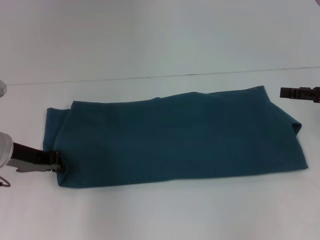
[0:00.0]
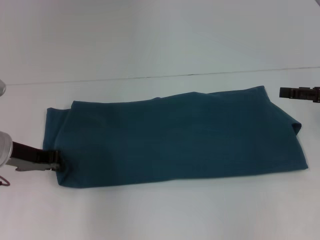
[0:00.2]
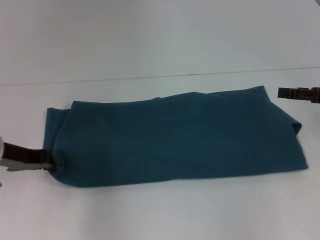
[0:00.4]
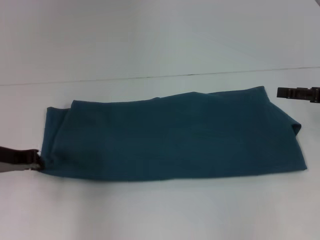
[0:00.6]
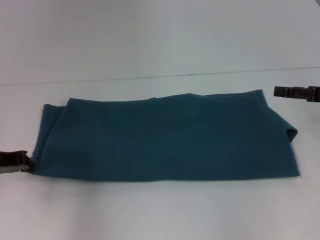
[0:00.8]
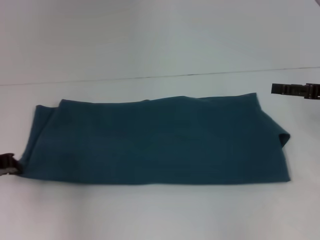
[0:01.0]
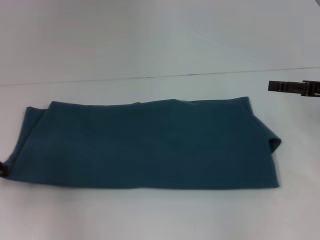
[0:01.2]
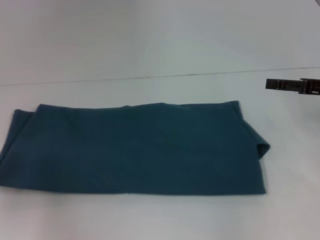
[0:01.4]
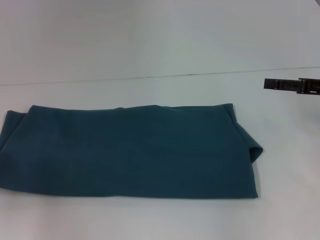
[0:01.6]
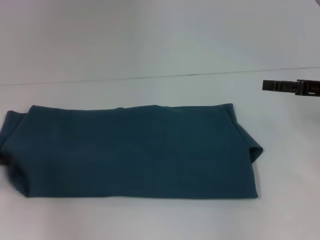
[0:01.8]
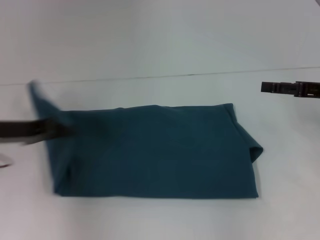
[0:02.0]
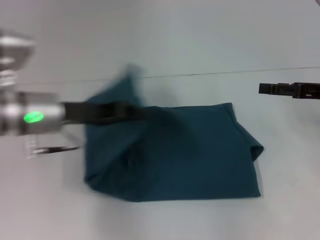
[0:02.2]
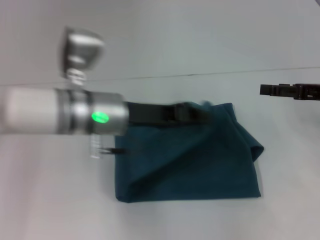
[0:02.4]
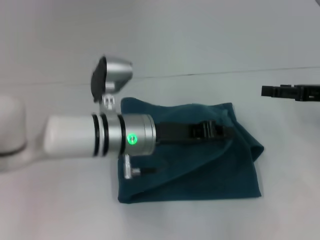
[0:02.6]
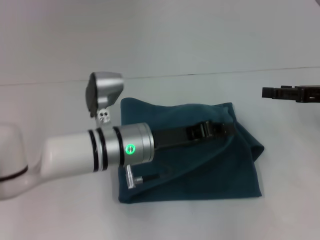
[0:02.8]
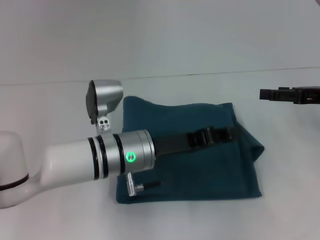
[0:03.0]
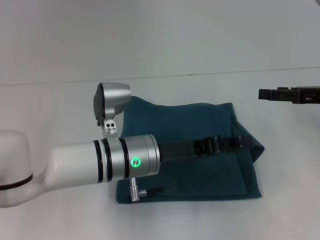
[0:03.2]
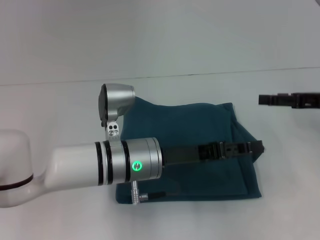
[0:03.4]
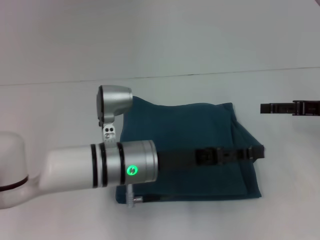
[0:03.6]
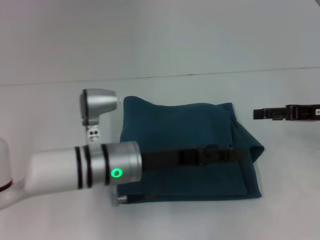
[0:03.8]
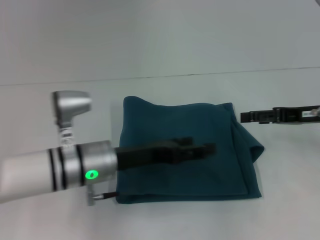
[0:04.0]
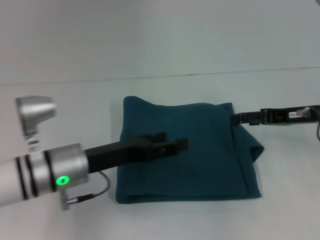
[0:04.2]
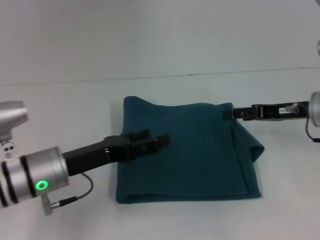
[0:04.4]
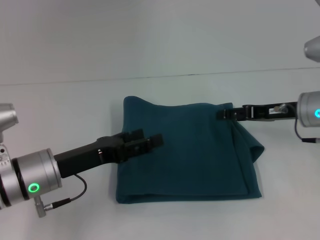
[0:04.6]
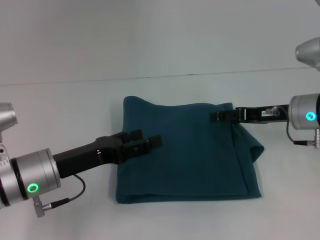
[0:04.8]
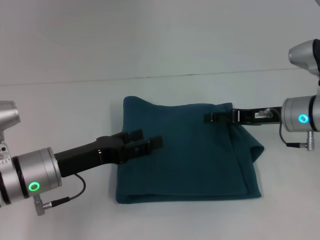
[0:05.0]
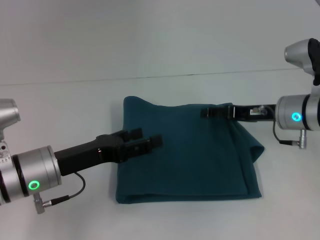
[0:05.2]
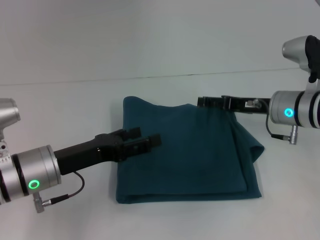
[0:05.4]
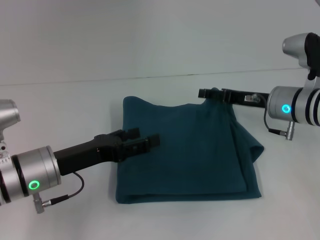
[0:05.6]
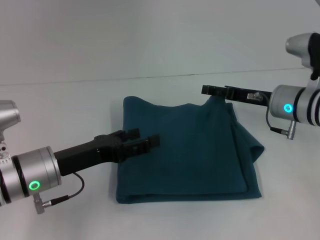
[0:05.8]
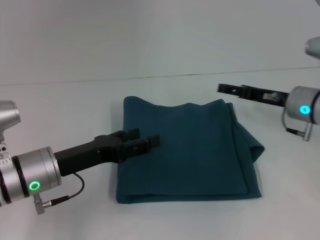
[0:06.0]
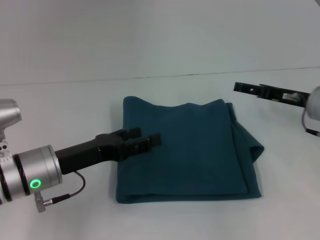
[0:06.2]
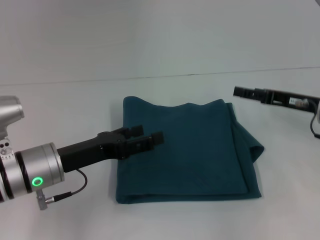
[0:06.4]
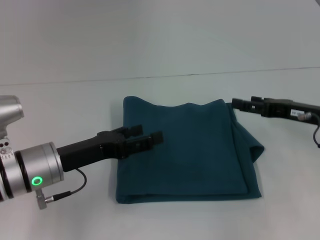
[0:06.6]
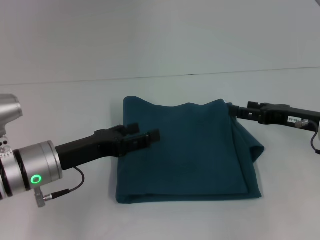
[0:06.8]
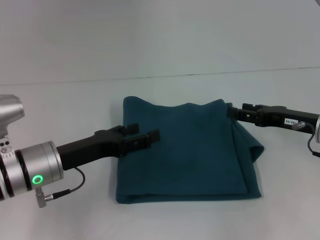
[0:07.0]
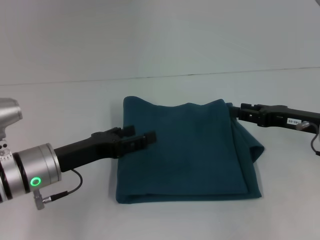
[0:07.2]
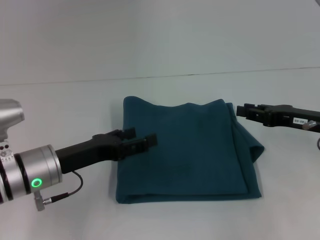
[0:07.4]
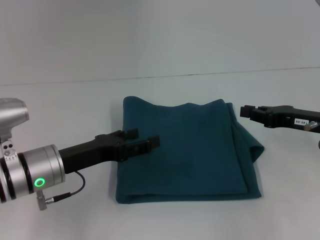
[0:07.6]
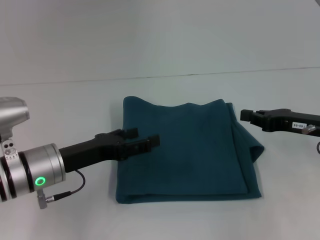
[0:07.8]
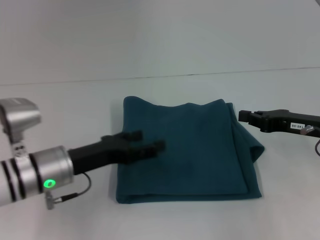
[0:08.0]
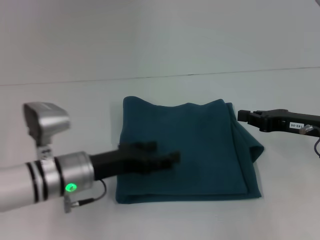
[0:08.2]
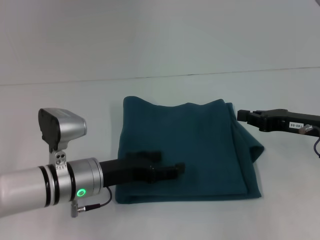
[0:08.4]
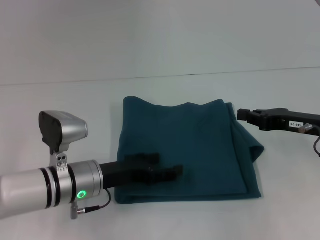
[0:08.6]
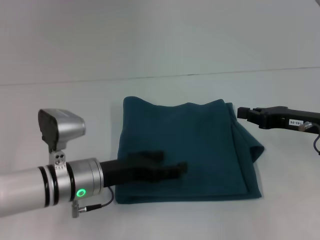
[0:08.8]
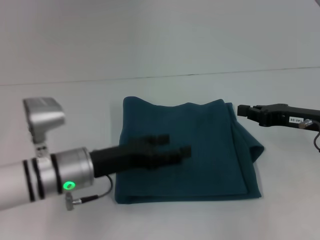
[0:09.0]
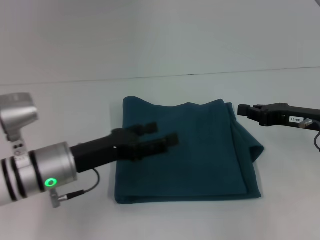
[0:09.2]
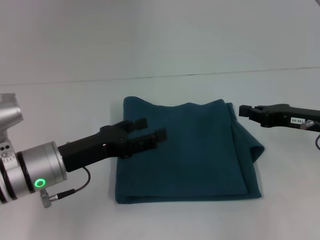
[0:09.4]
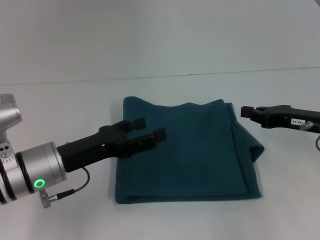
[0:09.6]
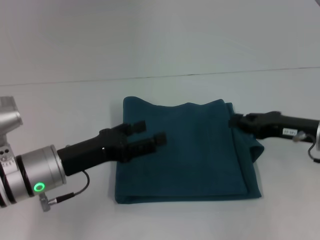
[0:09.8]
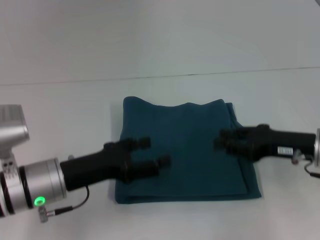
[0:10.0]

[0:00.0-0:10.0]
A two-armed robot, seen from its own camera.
Step, 0:00.0 to 0:03.0: Fold the clothes to the left.
0:00.0 to 0:01.4: The left gripper is displaced to the left by approximately 10 cm.
0:01.4 to 0:02.8: The left gripper shifts approximately 30 cm to the right.
0:02.8 to 0:04.2: The right gripper changes place by approximately 5 cm; the left gripper goes approximately 10 cm to the left, and opens.
0:04.2 to 0:05.8: The right gripper travels to the left by approximately 5 cm.
0:05.8 to 0:07.2: The right gripper is displaced backward and to the right by approximately 10 cm.
0:07.2 to 0:08.6: The right gripper closes. Meanwhile the left gripper shifts about 5 cm to the right.
0:08.6 to 0:10.0: The left gripper moves approximately 5 cm.

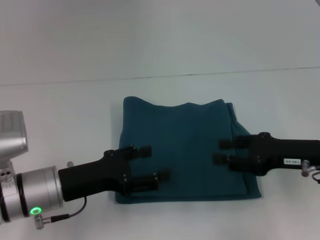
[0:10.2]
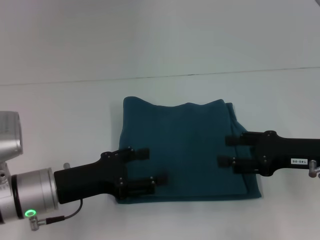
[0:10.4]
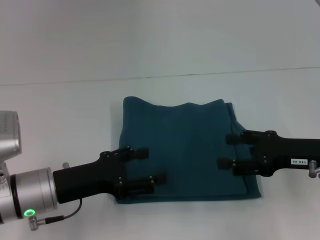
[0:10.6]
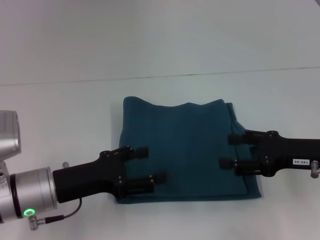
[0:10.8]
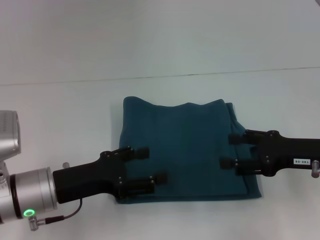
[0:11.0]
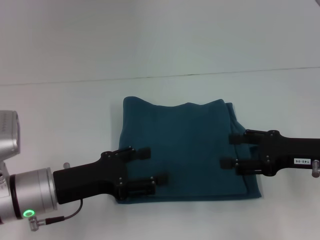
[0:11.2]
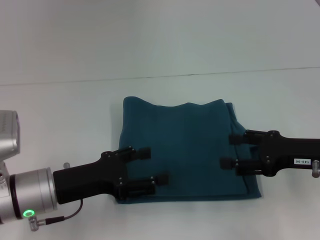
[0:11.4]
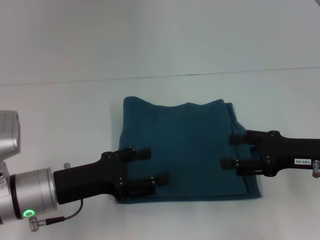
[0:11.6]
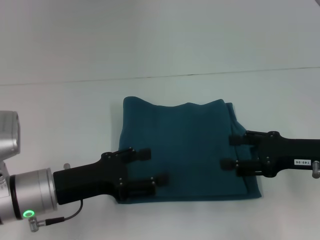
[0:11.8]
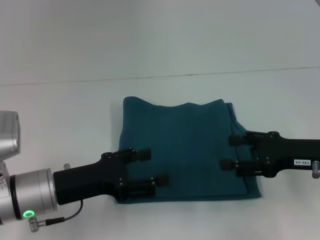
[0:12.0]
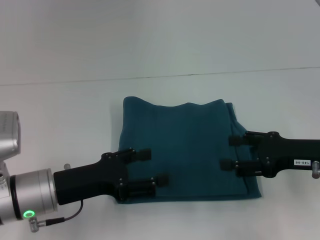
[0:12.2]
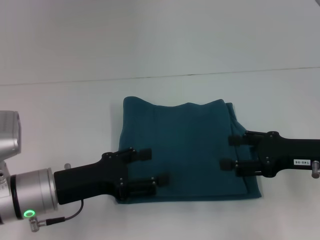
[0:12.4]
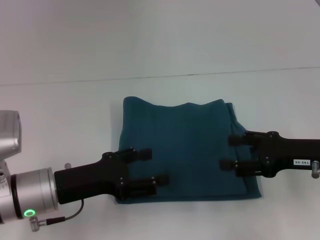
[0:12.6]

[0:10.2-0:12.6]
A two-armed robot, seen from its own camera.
0:10.2 to 0:11.4: The right gripper opens up.
0:11.4 to 0:12.6: Both grippers stay about where they are.

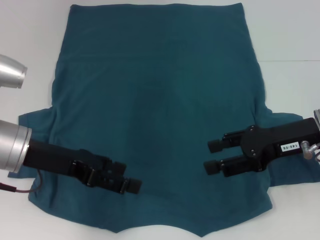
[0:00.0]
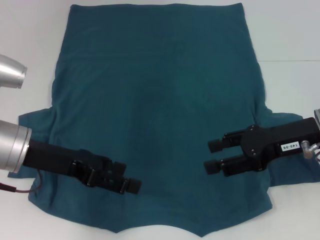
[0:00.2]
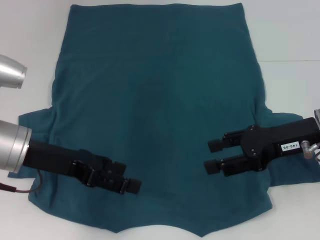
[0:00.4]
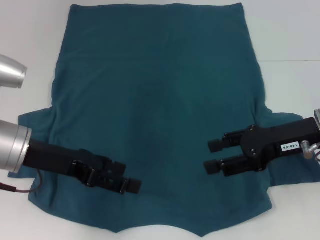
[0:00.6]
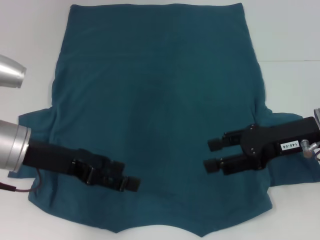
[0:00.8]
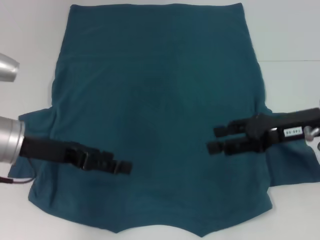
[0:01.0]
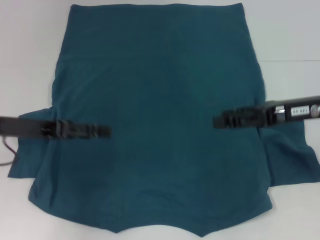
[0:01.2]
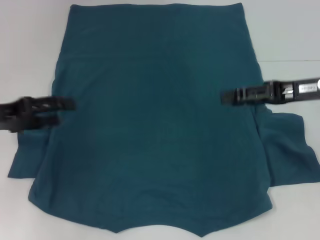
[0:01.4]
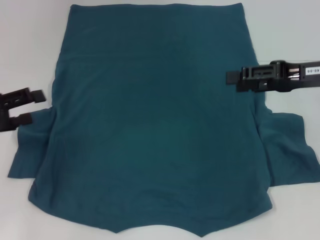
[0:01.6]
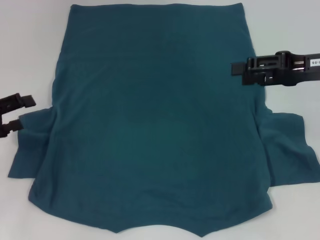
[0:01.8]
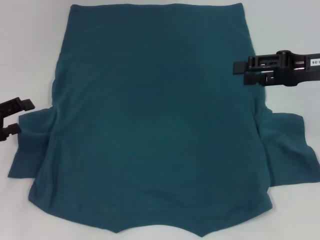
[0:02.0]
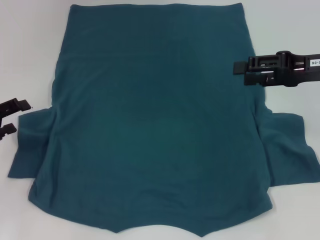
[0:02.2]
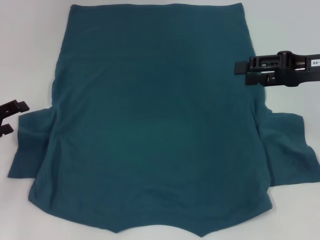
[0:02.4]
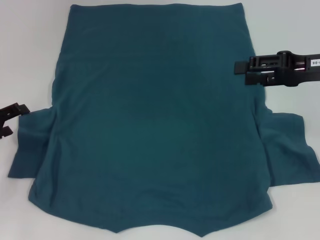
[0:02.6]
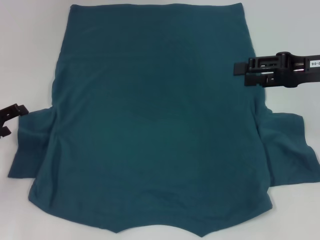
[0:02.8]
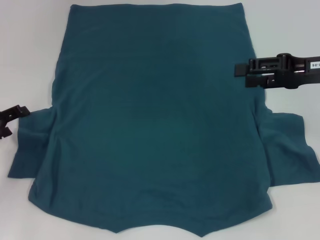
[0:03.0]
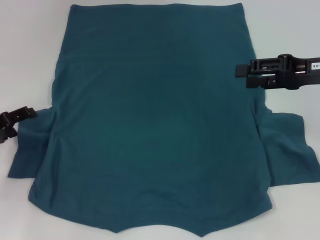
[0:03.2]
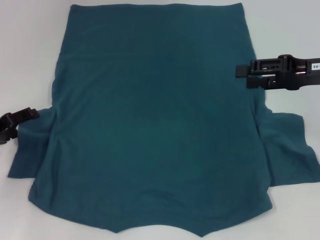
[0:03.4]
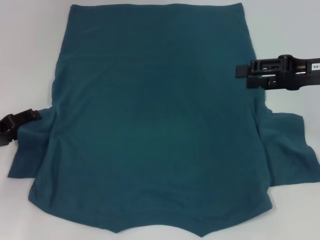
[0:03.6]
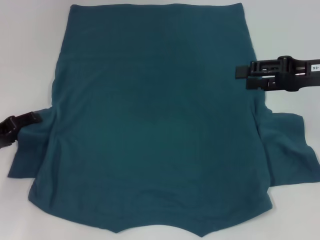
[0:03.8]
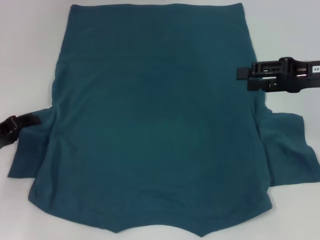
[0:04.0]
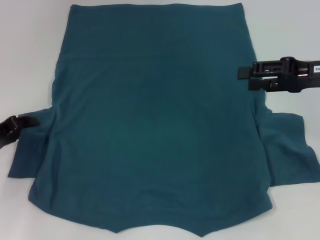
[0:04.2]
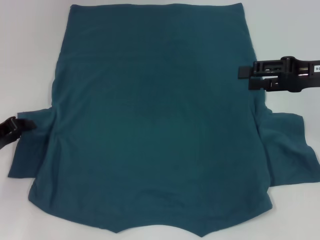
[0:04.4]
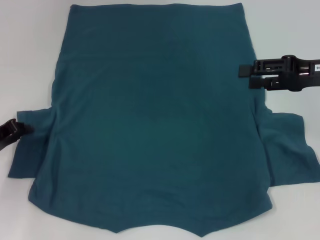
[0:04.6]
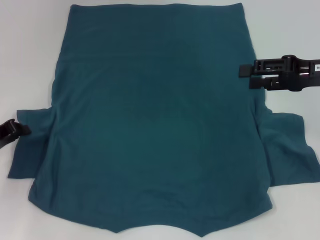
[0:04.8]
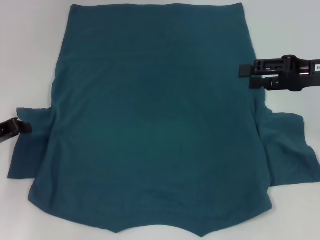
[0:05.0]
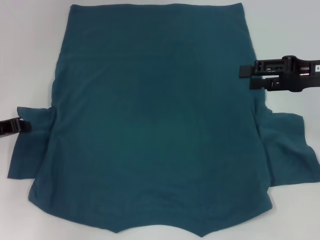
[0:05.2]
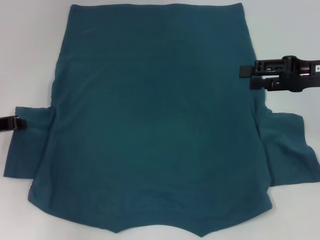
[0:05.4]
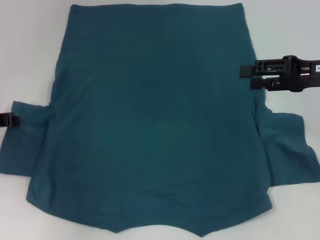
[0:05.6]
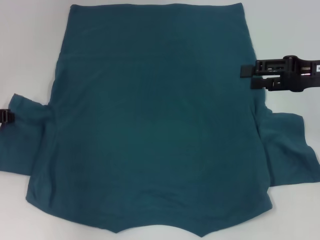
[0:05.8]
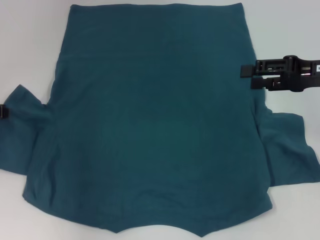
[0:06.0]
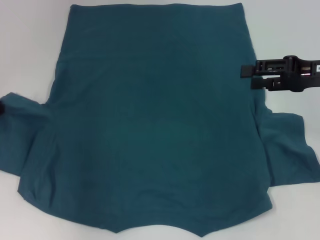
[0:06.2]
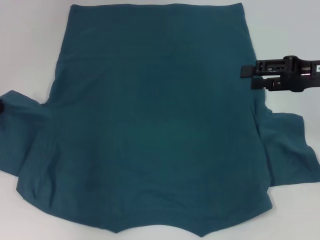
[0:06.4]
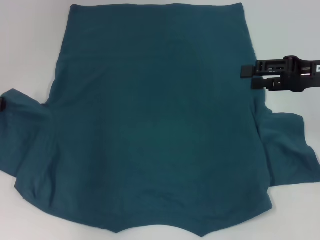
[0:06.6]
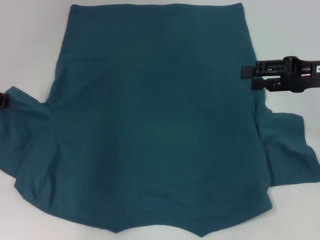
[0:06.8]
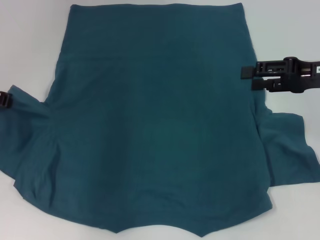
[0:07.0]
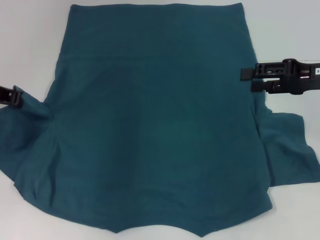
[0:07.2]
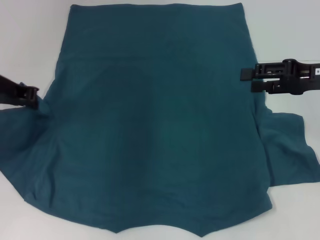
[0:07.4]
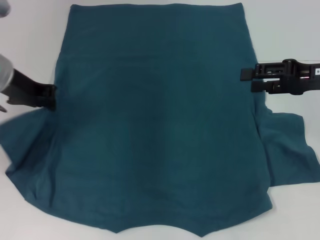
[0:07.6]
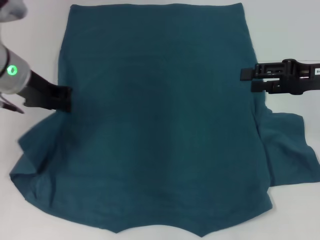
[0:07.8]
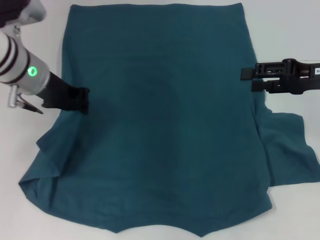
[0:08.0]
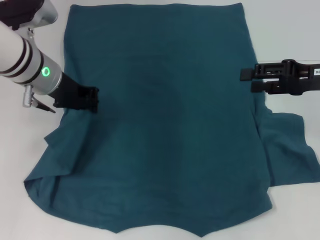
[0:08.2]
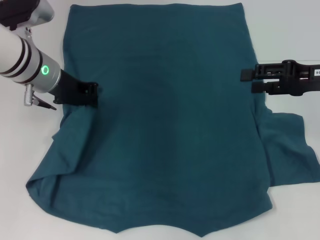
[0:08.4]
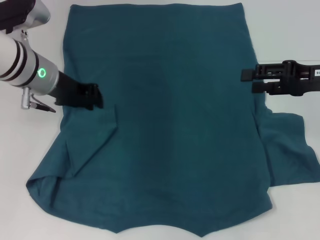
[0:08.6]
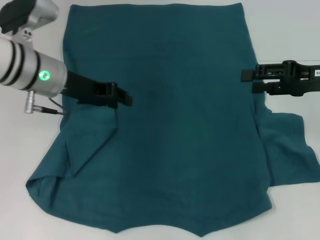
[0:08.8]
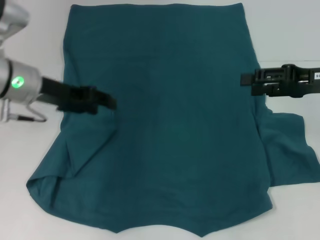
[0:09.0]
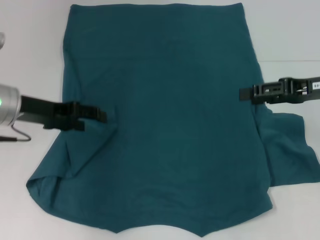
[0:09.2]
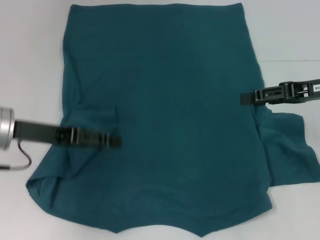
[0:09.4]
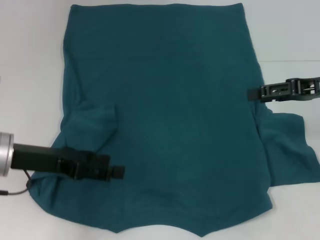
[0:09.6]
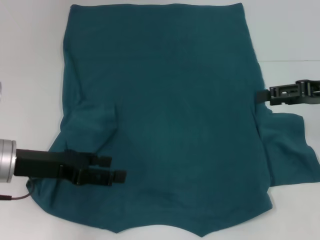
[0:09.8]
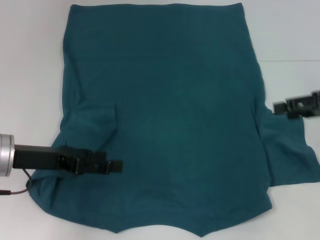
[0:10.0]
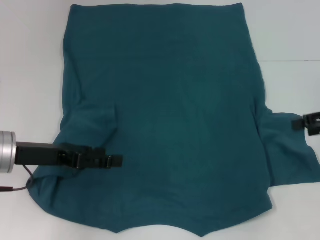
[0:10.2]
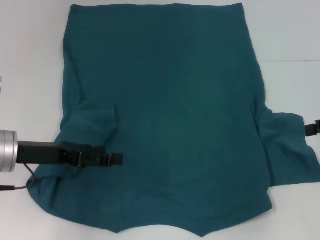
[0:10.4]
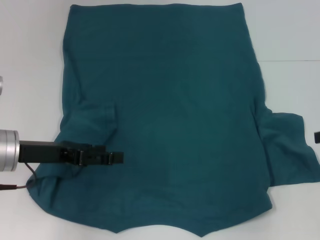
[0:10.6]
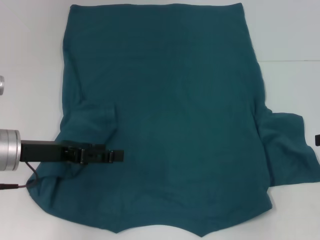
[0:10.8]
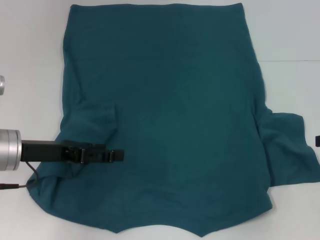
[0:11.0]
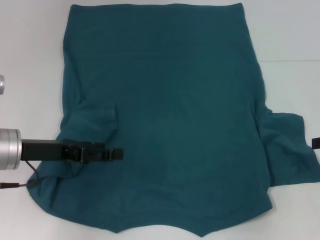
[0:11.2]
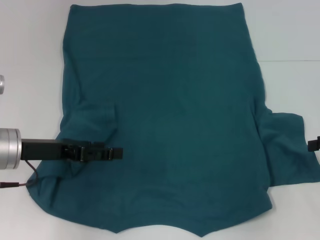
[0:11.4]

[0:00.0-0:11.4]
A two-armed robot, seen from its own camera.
Step, 0:00.0 to 0:08.8: Fold the bottom left sleeve with your left hand.
0:00.0 to 0:01.4: The left gripper goes roughly 10 cm to the left; the right gripper moves roughly 5 cm.
0:01.4 to 0:02.8: The left gripper is displaced downward by some 10 cm.
0:02.8 to 0:04.2: The grippers stay close to where they were, moving slightly.
0:04.2 to 0:05.6: The left gripper ends up about 5 cm from where it was, and closes.
0:05.6 to 0:07.2: The left gripper shifts approximately 5 cm upward.
0:07.2 to 0:08.6: The left gripper is displaced to the right by approximately 10 cm.
0:08.6 to 0:10.0: The left gripper is displaced backward and to the left by about 15 cm, and opens up.
0:10.0 to 0:11.4: The right gripper shifts by approximately 5 cm.
